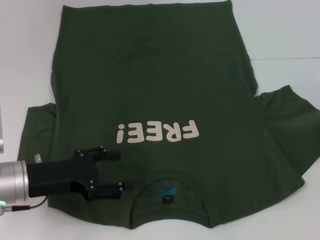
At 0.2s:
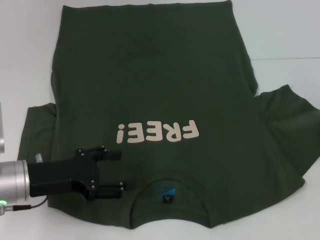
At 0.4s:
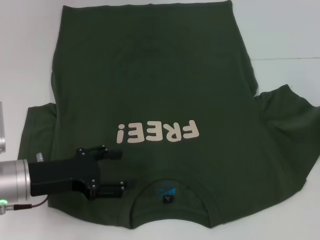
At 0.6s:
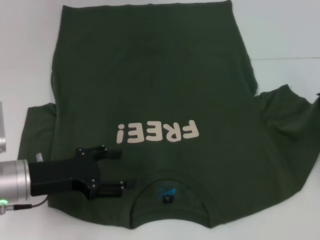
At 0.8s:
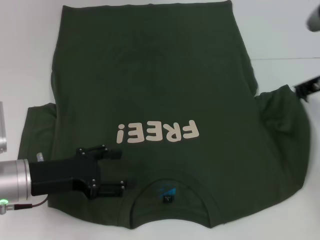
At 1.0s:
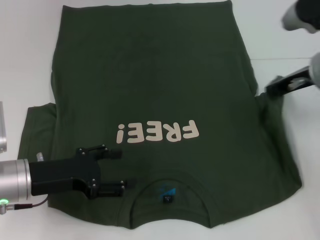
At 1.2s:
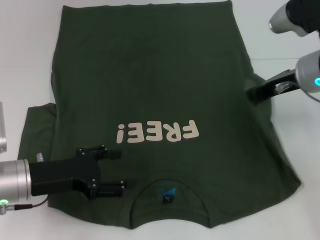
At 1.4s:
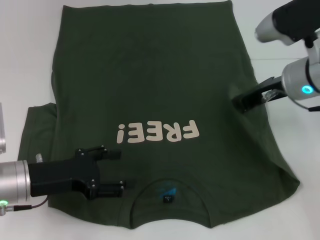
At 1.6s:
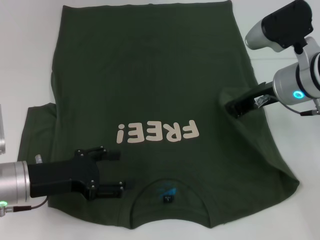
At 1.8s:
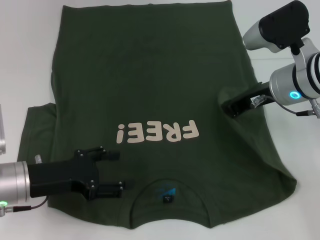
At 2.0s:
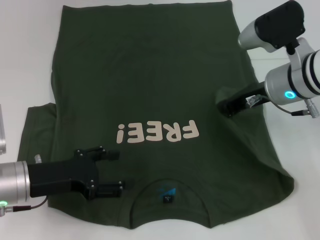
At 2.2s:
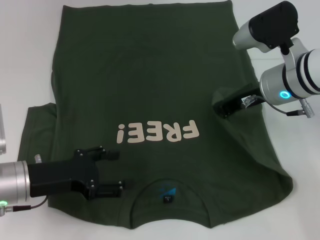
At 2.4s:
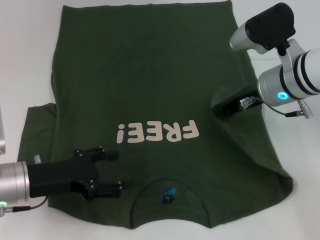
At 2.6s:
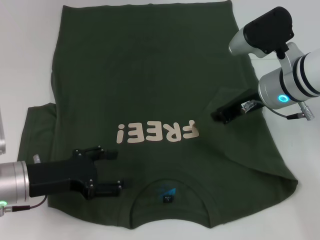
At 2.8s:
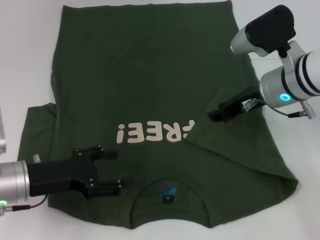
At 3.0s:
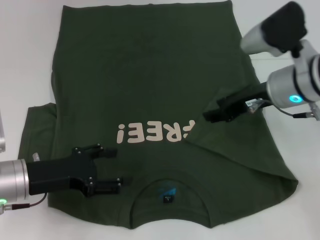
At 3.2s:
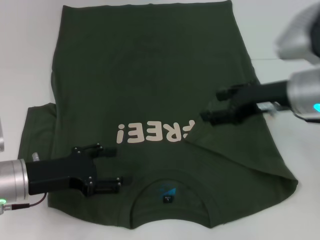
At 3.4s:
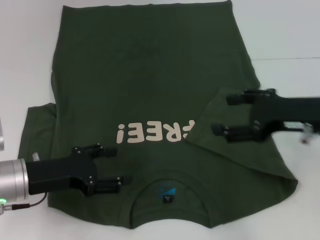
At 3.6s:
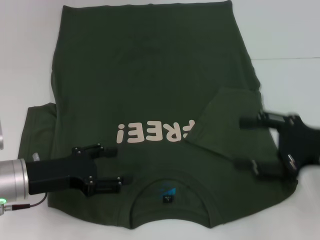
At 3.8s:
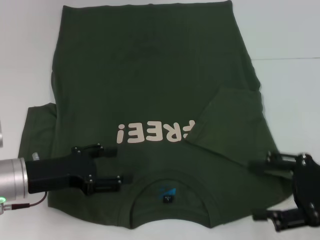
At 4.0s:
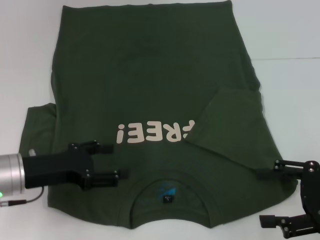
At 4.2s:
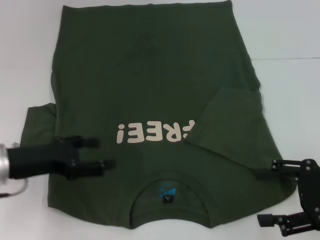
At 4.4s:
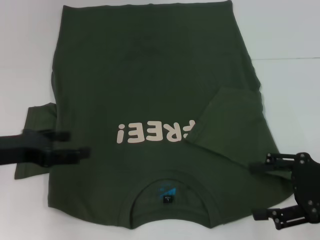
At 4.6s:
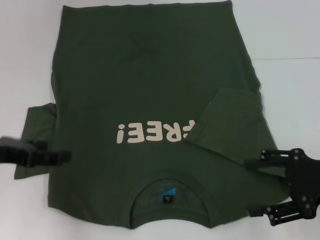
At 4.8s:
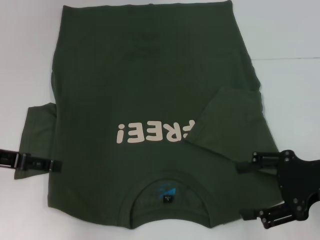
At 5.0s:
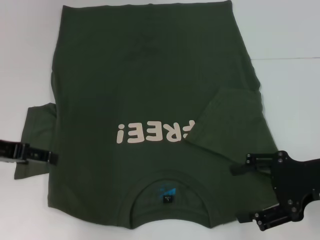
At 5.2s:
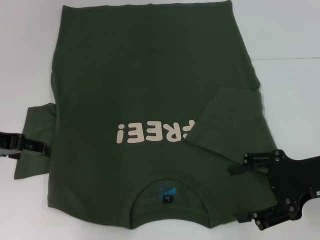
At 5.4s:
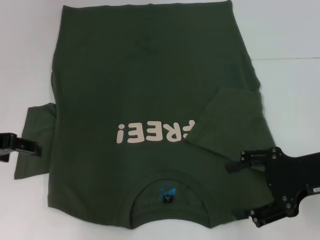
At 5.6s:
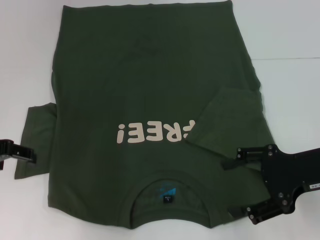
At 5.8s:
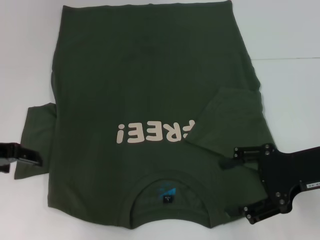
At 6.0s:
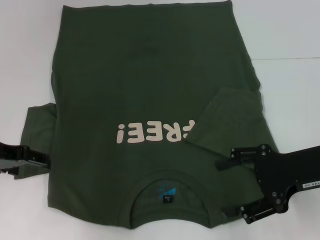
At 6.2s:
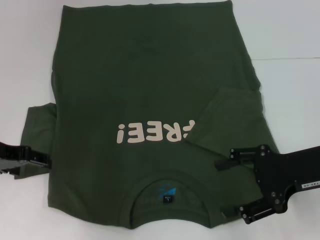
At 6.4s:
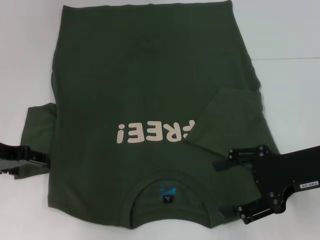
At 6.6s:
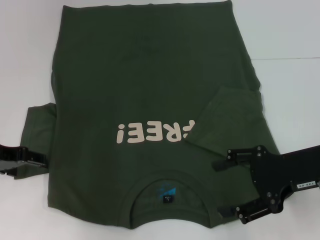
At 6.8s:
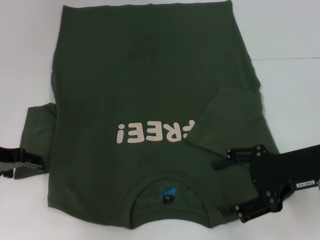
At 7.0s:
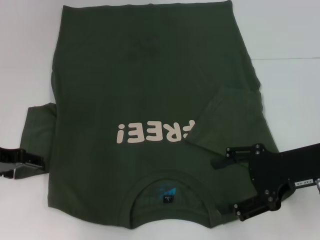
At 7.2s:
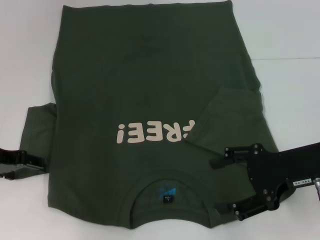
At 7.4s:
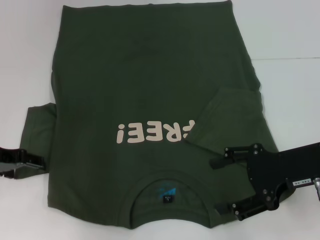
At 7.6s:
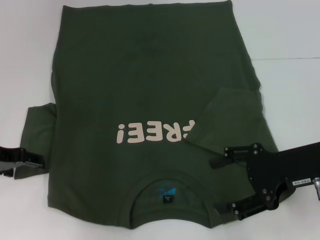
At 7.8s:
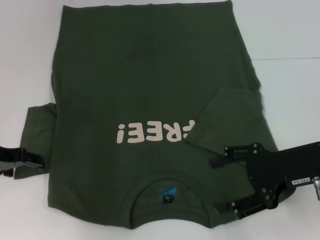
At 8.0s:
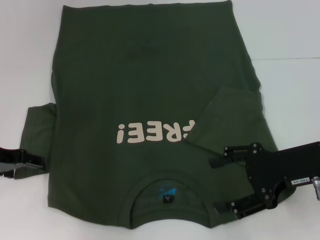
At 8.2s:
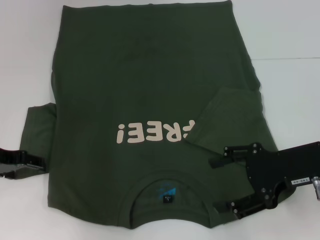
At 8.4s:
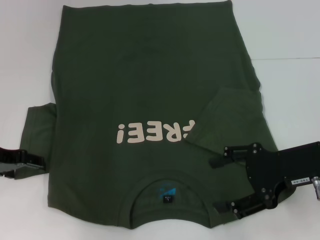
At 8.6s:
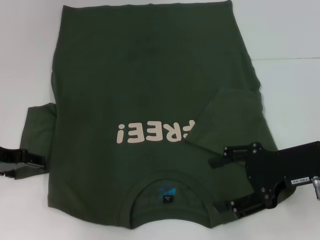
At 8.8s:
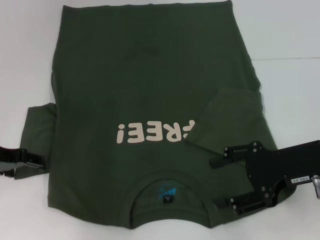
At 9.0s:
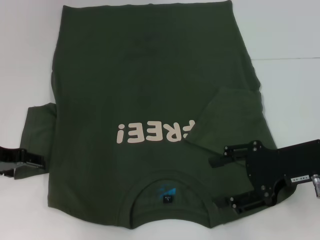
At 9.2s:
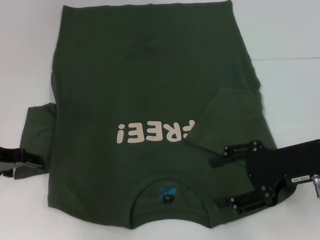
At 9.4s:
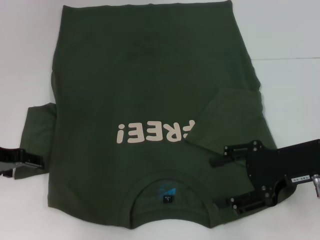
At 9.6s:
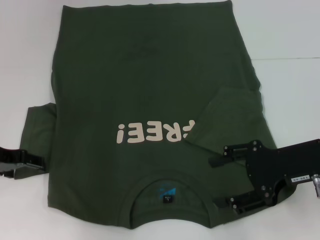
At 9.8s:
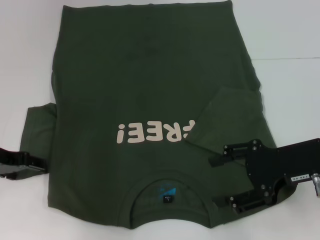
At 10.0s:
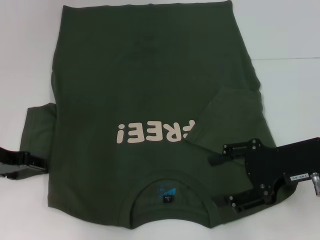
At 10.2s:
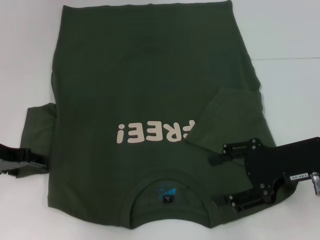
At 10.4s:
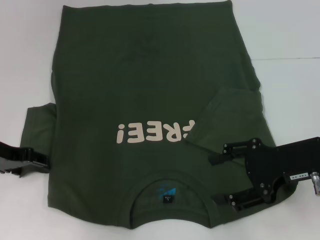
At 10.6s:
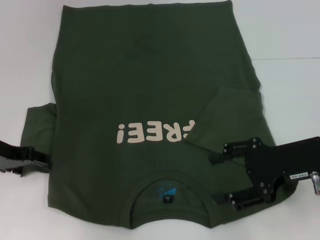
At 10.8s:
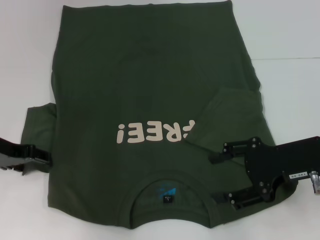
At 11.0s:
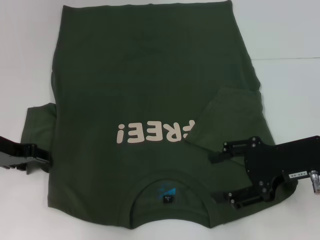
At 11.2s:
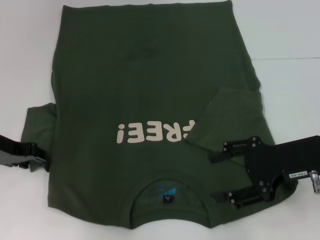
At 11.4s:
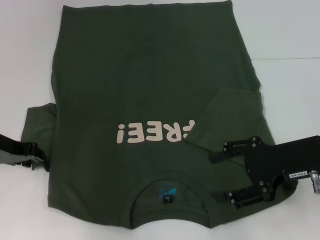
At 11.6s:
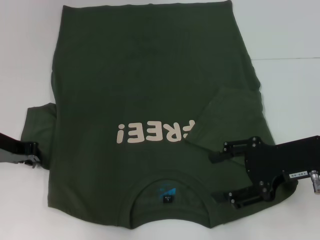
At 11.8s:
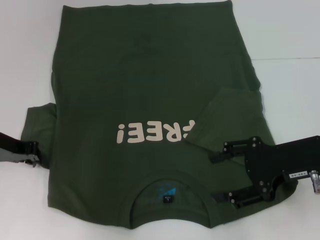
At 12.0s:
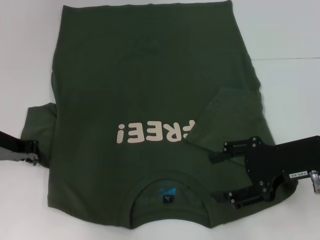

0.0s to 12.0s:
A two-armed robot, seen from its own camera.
Step, 0.0s to 2.6s: Fold the bottom right sleeve with your right hand.
0.0s to 1.6s: The right gripper moves to the left, some 15 cm.
1.6s to 3.0s: The right gripper opens.
3.0s to 4.4s: The right gripper travels backward and to the right by some 15 cm, and opens. The left gripper shifts some 5 cm upward.
4.4s to 6.0s: The right gripper moves roughly 5 cm.
6.0s to 7.6s: There are only small adjustments of the grippers.
7.6s to 10.4s: The two grippers keep their place.
10.4s to 12.0s: The left gripper closes its fingers.

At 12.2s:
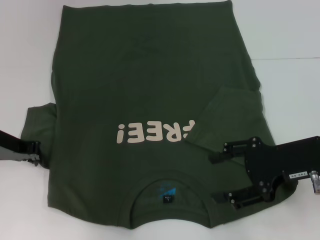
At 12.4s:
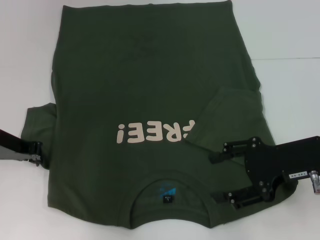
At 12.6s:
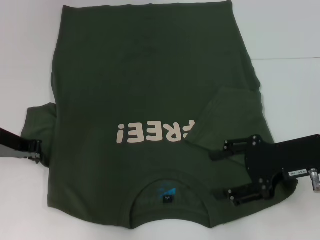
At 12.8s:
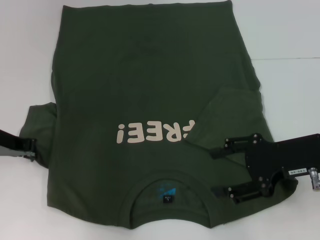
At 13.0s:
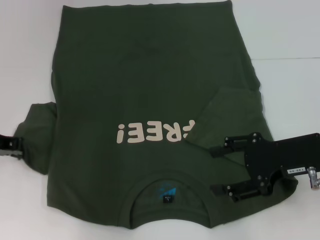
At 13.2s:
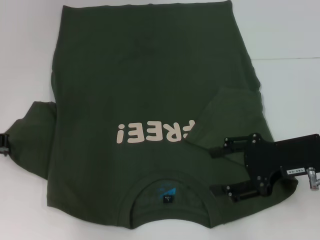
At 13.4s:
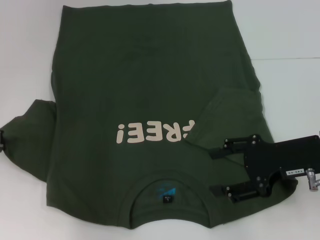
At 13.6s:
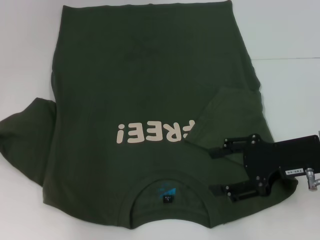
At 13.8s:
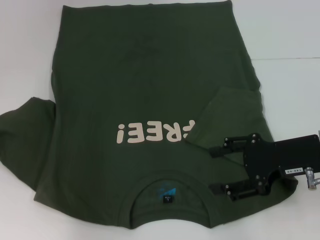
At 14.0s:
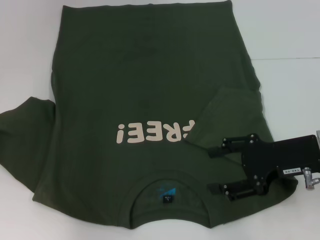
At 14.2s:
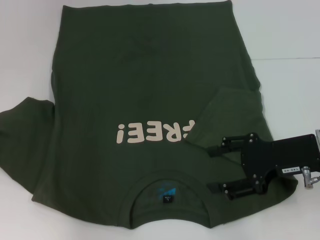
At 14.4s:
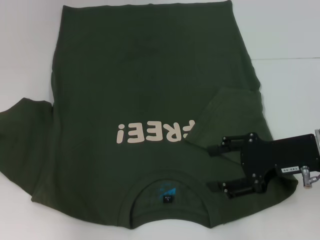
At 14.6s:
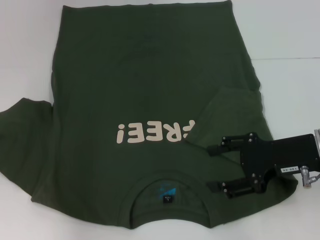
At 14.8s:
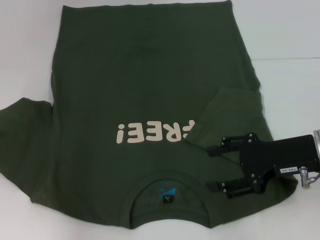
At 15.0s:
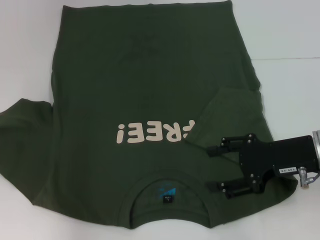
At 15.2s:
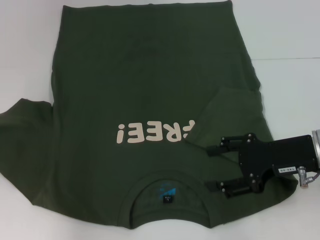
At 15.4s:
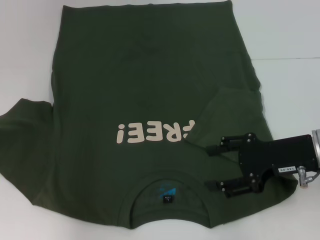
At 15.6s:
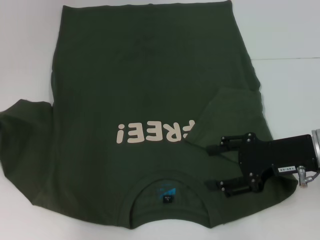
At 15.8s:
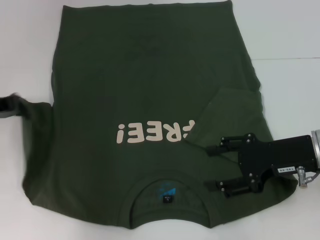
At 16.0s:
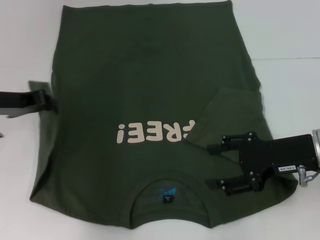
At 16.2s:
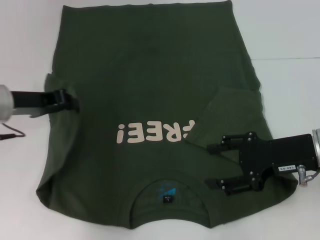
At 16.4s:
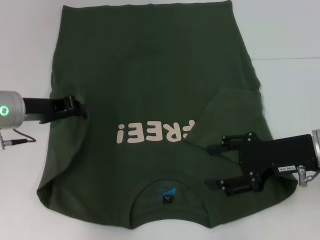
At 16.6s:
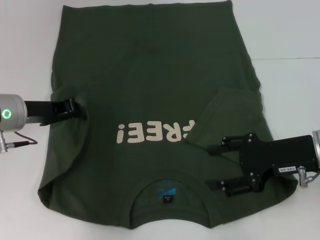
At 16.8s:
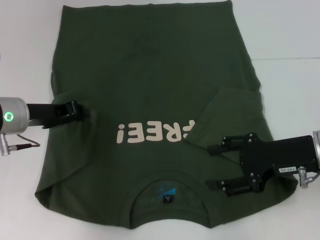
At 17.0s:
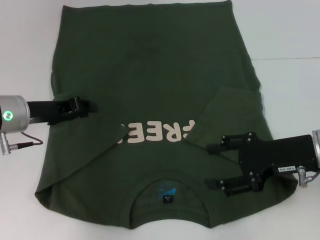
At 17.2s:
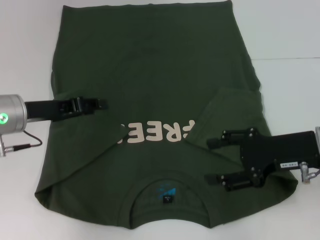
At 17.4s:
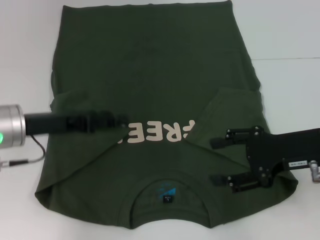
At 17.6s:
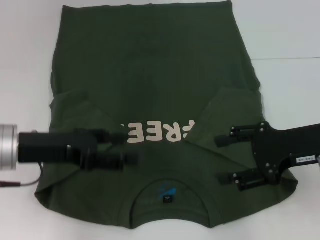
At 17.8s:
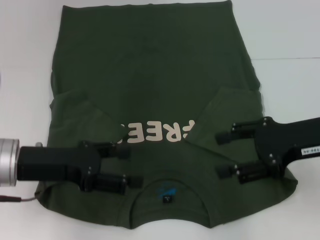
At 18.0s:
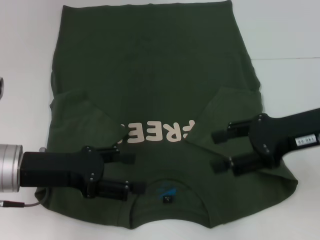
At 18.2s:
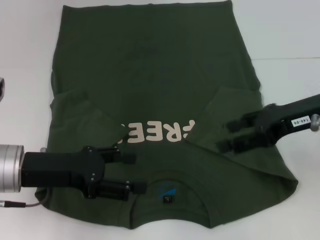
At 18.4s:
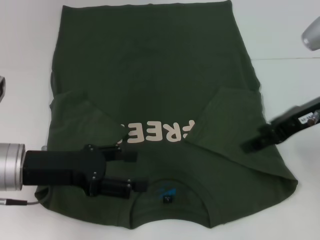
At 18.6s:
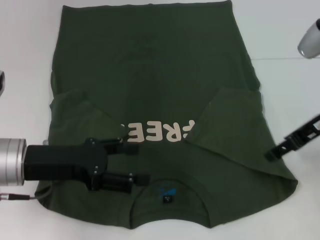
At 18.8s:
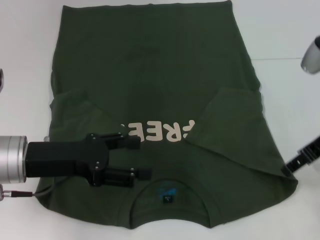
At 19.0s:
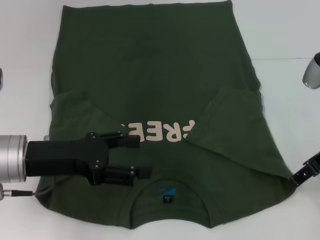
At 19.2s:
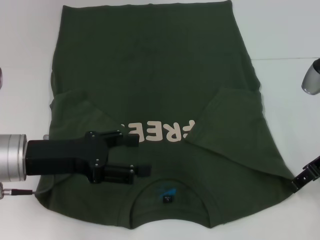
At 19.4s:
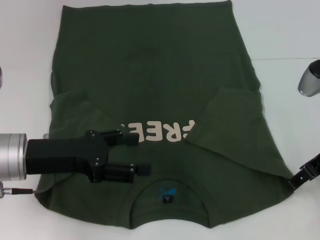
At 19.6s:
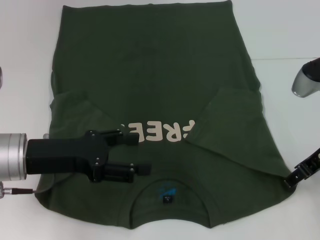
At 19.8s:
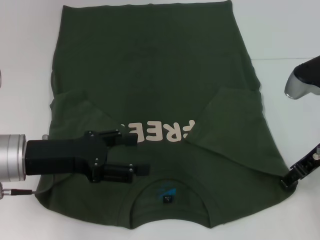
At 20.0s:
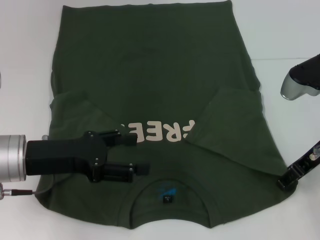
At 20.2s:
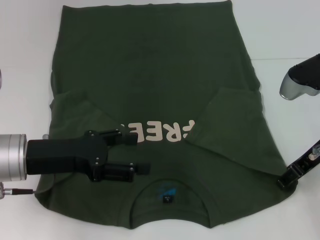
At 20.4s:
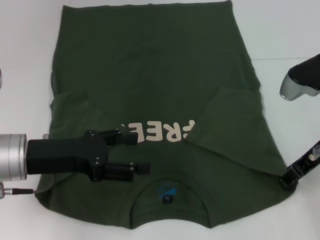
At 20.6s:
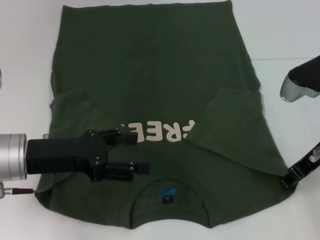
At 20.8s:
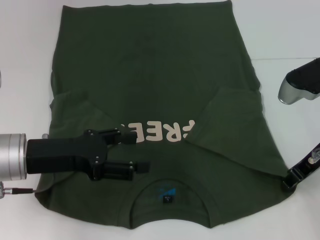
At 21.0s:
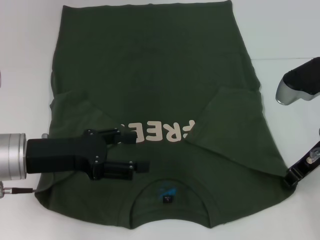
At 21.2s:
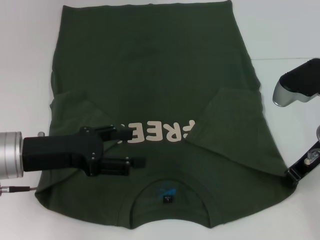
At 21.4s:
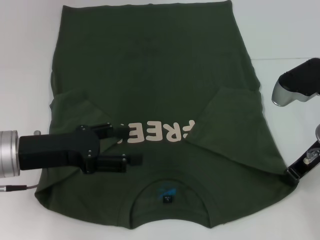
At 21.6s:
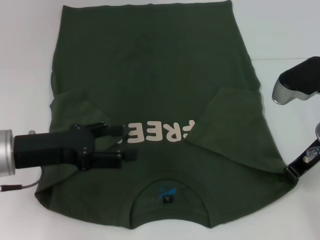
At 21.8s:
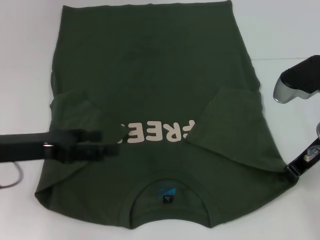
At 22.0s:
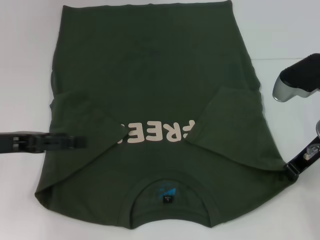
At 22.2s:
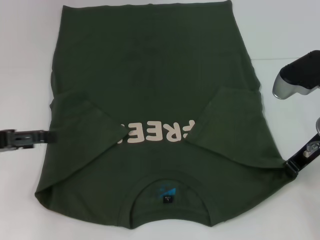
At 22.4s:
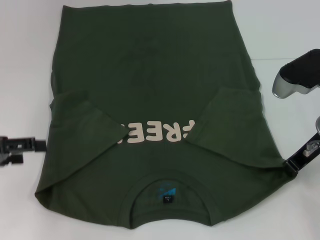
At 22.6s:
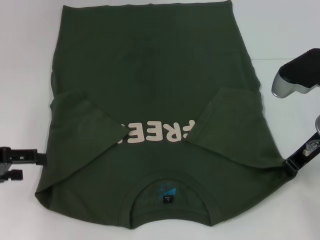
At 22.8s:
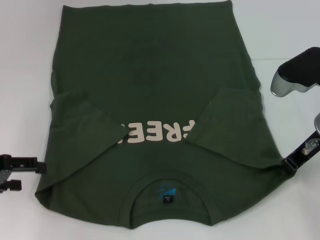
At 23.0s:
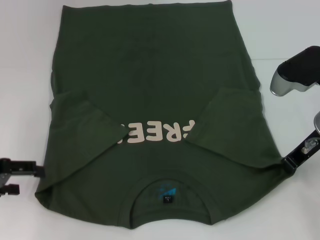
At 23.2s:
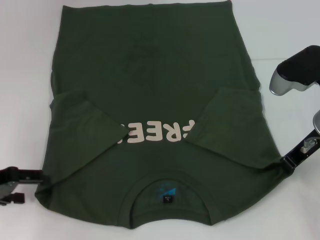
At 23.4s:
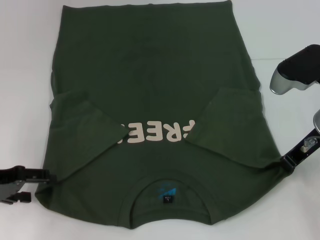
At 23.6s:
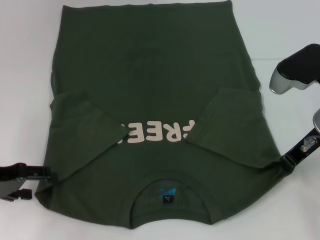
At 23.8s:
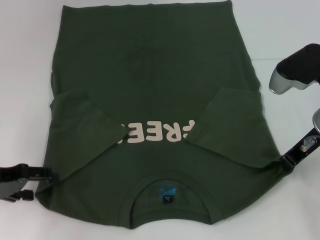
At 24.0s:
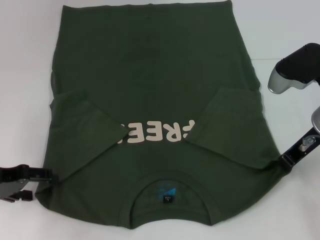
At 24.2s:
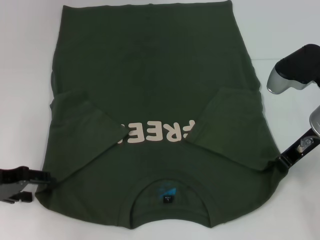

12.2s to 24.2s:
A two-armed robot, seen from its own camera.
Step, 12.2s to 16.8s: Fold the bottom left sleeve with your left hand.
Step, 17.0s to 21.4s: Grab the bottom right corner with your right hand.
12.2s to 13.8s: The left gripper is displaced to the left by some 5 cm.
13.8s to 15.2s: The grippers move only a little.
15.2s to 16.6s: The left gripper is displaced to the right by roughly 10 cm.
16.6s to 18.2s: The left gripper goes some 10 cm backward, and opens its fingers; the right gripper travels upward by approximately 5 cm.
18.2s to 19.8s: The right gripper moves downward, about 5 cm.
19.8s to 21.2s: The right gripper closes.
21.2s to 22.6s: The left gripper is displaced to the left by about 10 cm.
22.6s to 24.2s: The grippers stay close to where they were, moving slightly.
